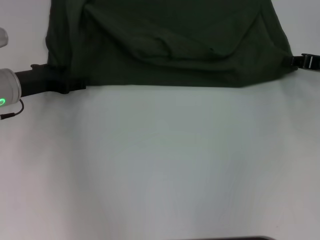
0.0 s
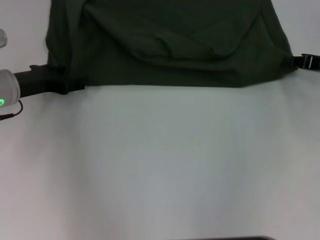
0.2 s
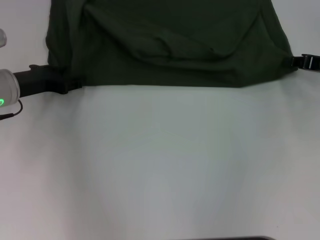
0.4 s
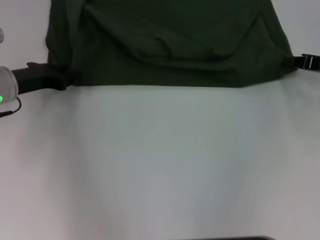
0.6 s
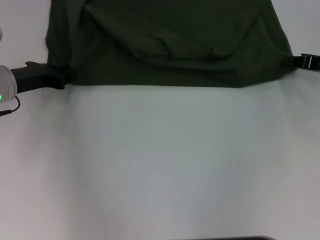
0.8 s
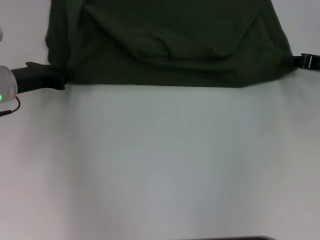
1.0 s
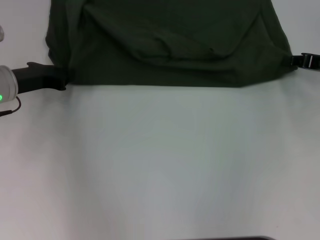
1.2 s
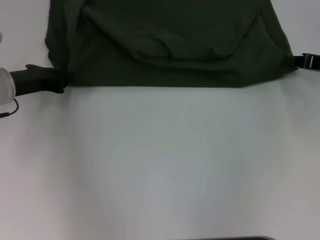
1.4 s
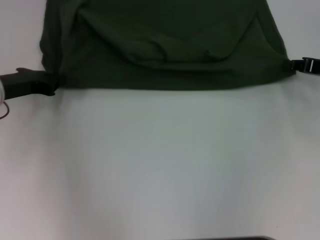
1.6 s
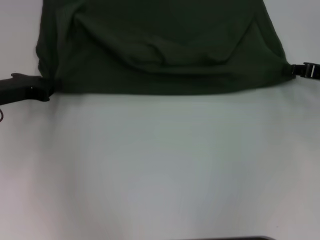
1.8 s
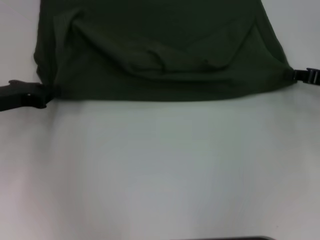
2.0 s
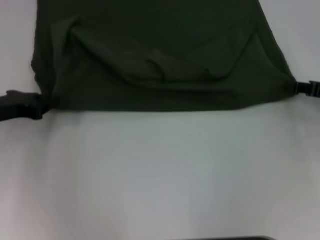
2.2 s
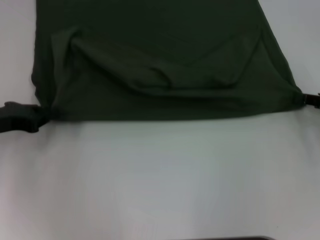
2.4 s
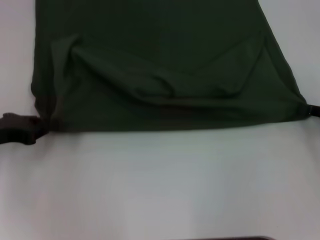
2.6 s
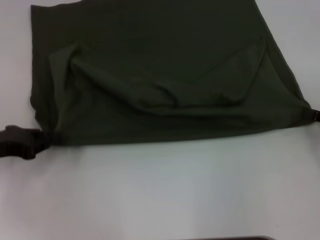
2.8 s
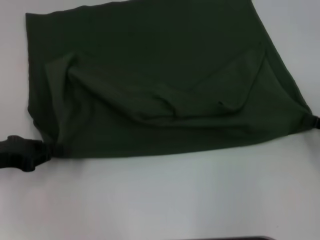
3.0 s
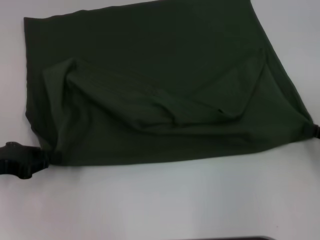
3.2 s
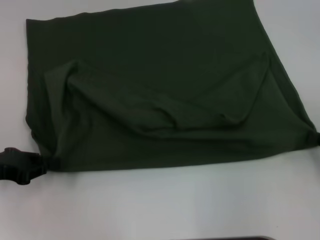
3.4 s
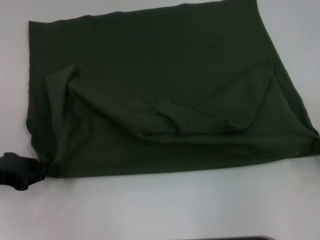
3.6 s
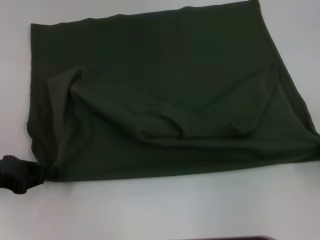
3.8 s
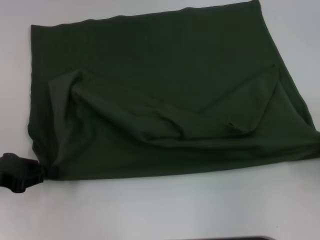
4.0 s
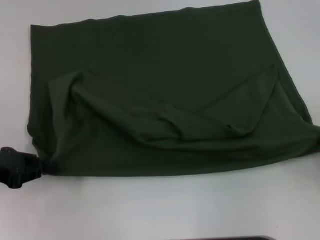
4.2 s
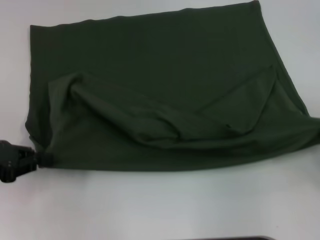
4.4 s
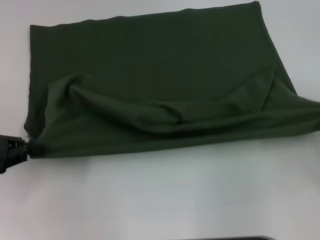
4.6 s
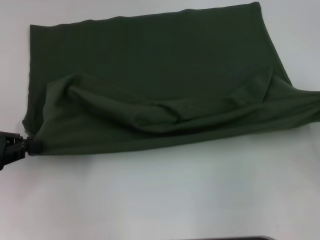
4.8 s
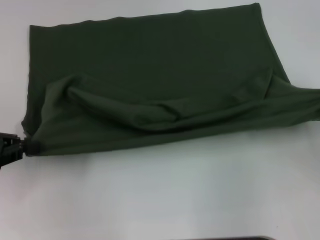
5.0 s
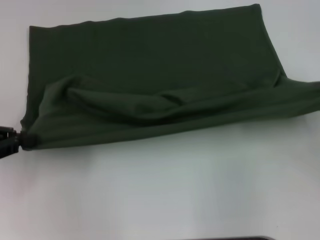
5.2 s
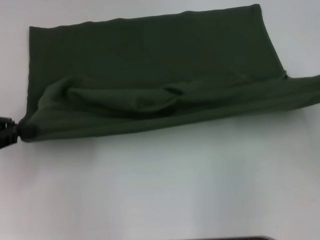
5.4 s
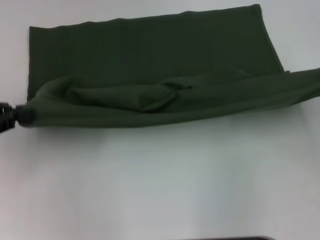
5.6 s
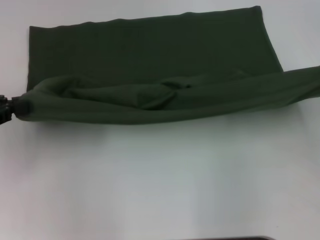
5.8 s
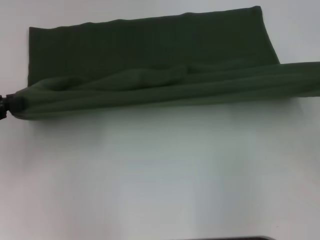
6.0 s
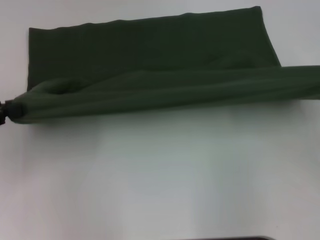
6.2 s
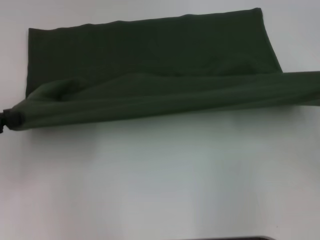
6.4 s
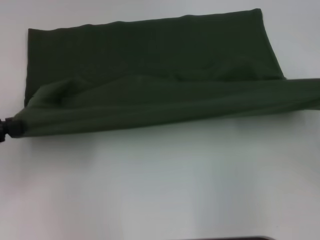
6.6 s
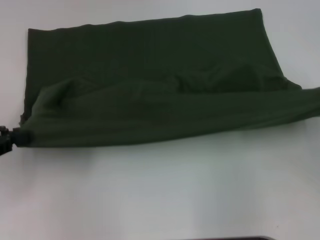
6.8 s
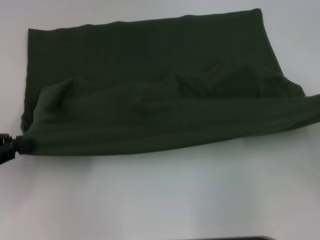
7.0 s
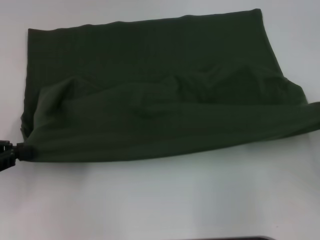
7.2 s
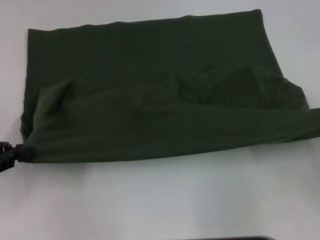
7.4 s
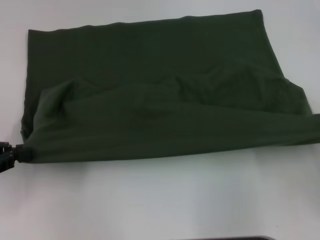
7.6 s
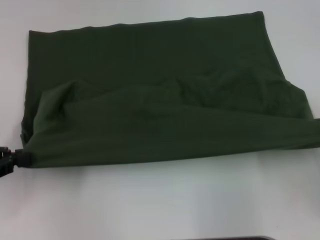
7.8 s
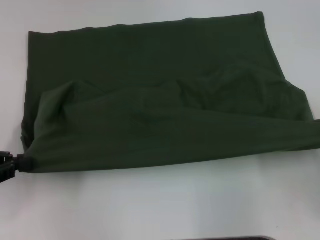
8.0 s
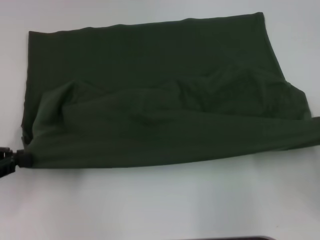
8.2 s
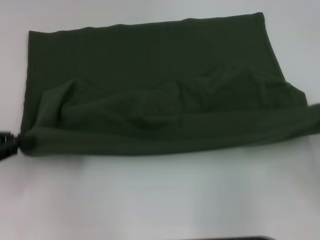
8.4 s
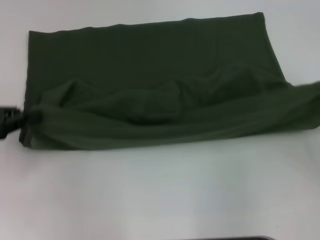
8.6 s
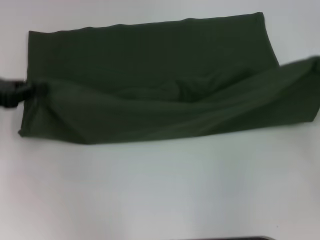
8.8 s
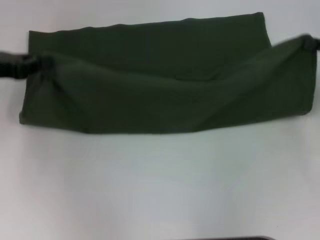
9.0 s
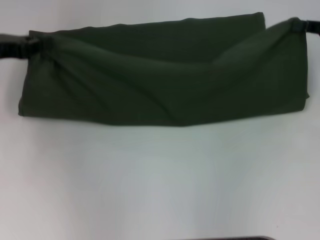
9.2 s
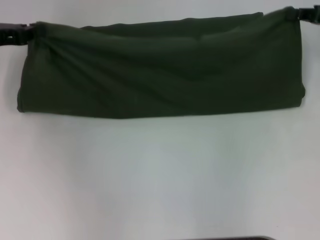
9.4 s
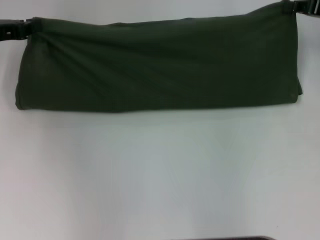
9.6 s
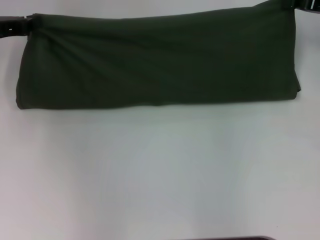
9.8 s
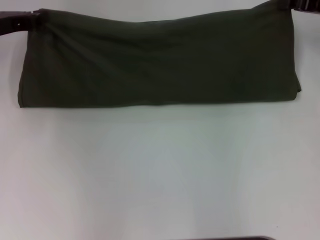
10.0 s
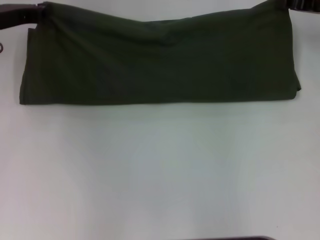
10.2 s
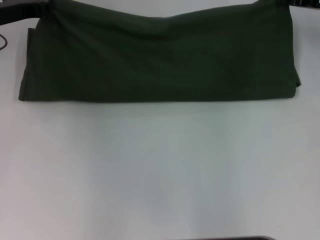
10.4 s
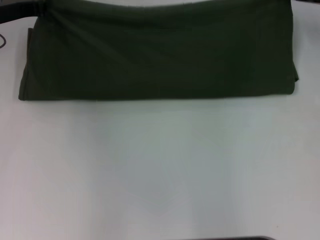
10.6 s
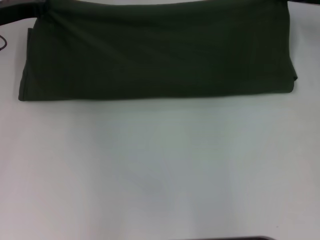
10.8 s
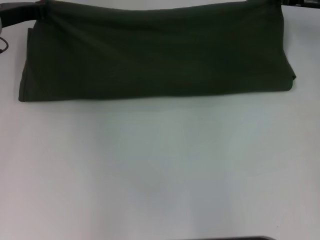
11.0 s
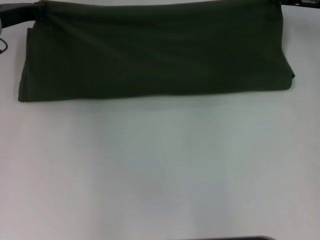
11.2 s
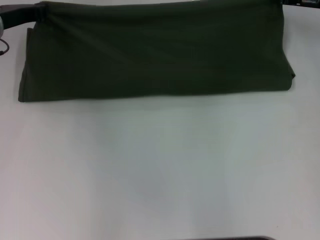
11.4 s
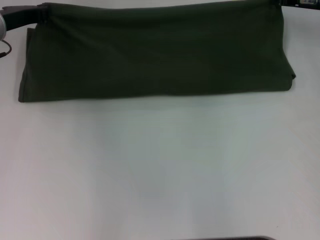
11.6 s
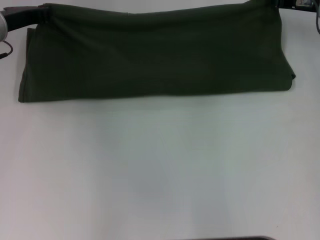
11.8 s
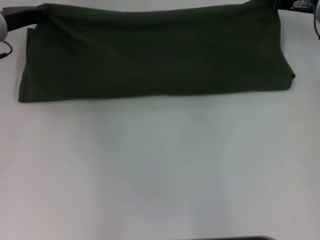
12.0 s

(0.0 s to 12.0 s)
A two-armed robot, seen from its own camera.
Step, 0.0 s - 7.2 s: Pull the clothes with your left hand.
Step, 0.0 s - 7.2 s: Pull the clothes with your right hand.
0.0 s - 1.6 s: The left gripper closes.
1.6 s - 3.0 s: Both grippers move backward, roughly 10 cm.
3.0 s - 4.4 s: There are only small adjustments of the grippers.
4.4 s - 6.0 s: The left gripper changes place by some 5 cm, while the right gripper is displaced upward by approximately 5 cm.
6.0 s - 7.6 s: The right gripper shifts approximately 5 cm backward.
7.6 s - 9.0 s: Both grippers move forward, approximately 15 cm.
9.0 s - 10.4 s: The left gripper goes approximately 10 cm forward. The right gripper heads forward and to the left, covering about 10 cm.
10.4 s - 12.0 s: There are only small adjustments of the grippers.

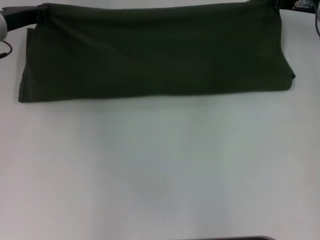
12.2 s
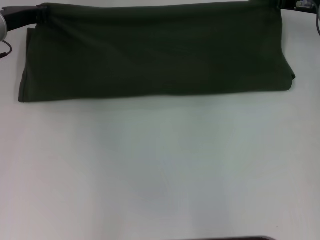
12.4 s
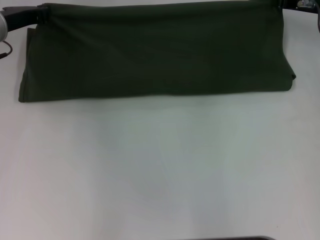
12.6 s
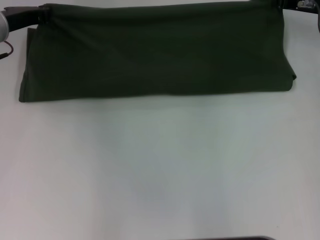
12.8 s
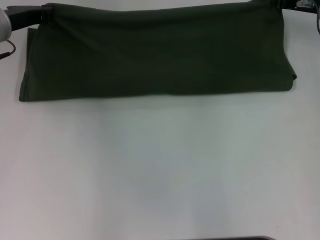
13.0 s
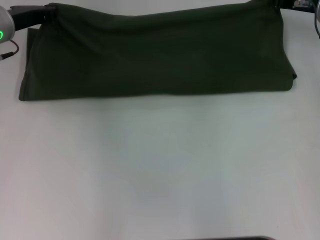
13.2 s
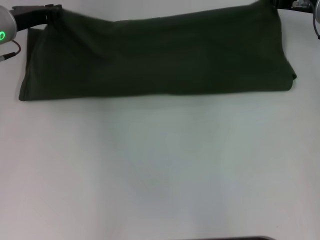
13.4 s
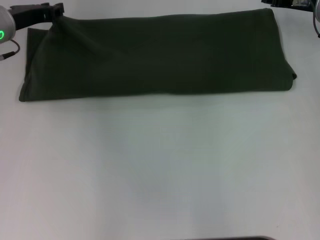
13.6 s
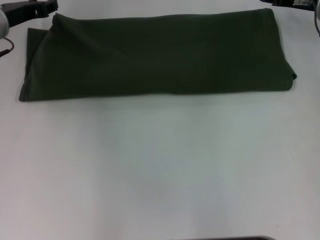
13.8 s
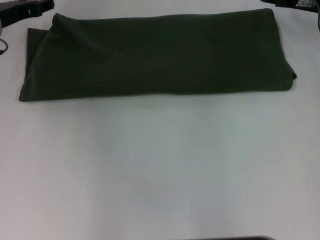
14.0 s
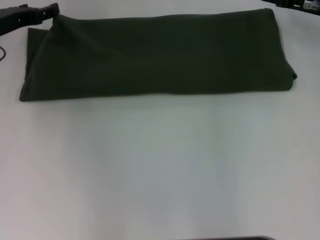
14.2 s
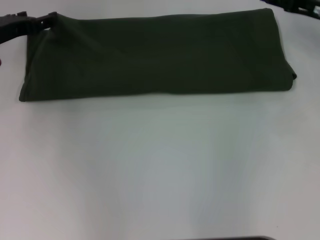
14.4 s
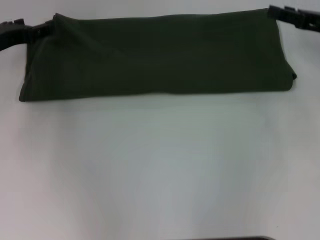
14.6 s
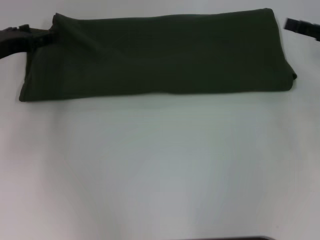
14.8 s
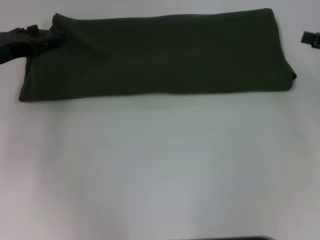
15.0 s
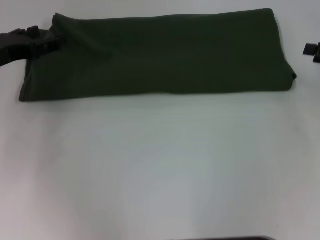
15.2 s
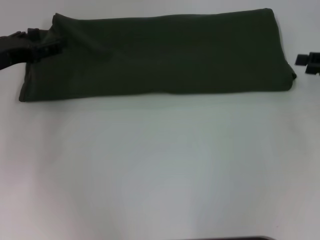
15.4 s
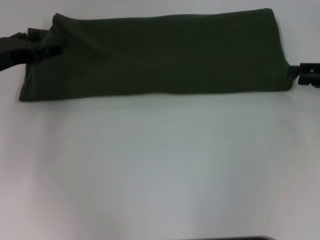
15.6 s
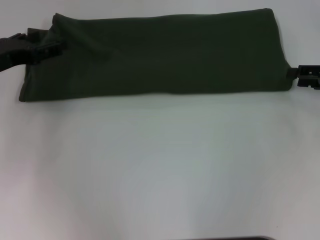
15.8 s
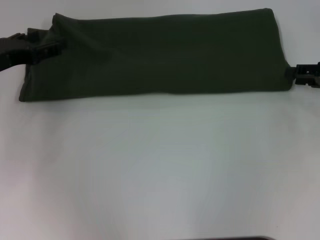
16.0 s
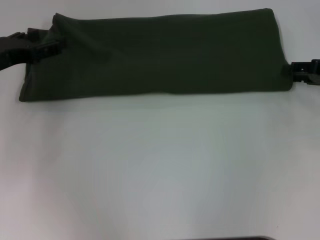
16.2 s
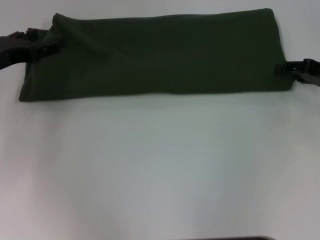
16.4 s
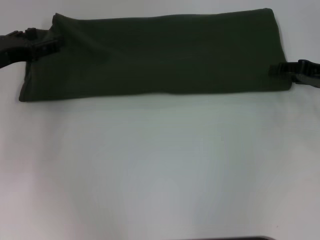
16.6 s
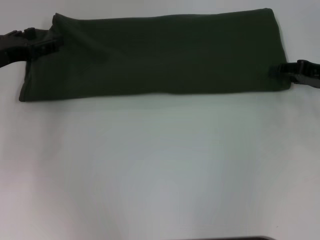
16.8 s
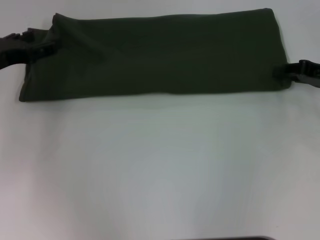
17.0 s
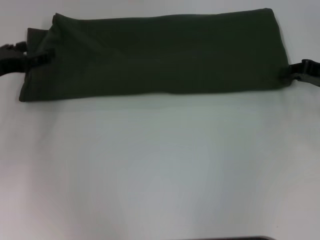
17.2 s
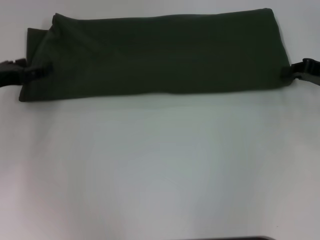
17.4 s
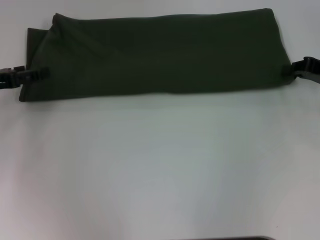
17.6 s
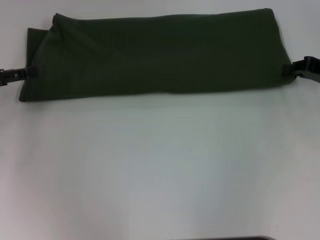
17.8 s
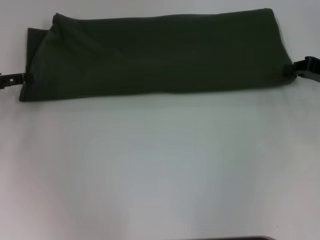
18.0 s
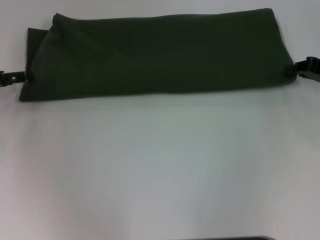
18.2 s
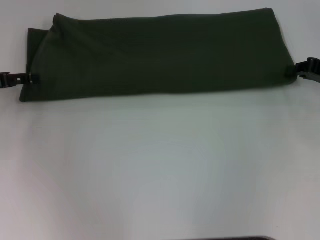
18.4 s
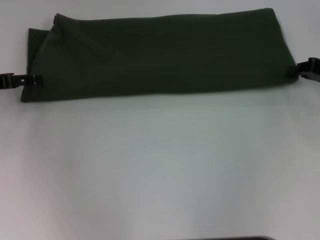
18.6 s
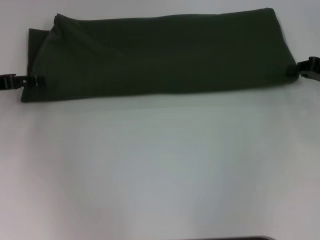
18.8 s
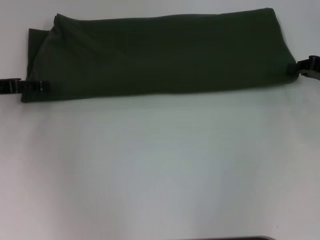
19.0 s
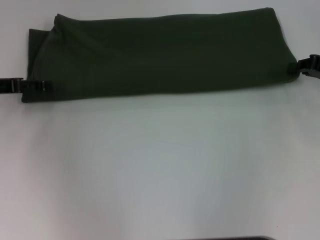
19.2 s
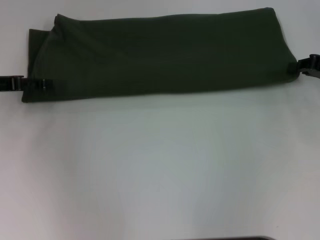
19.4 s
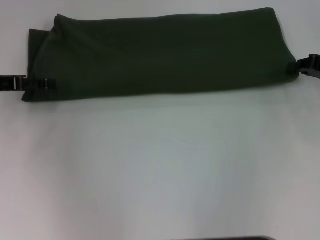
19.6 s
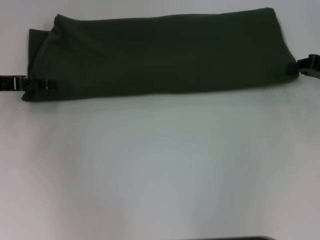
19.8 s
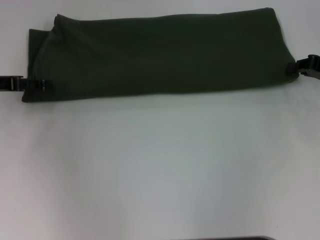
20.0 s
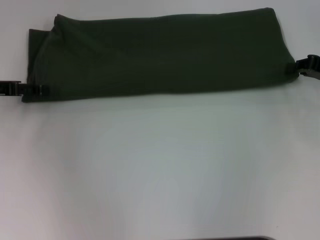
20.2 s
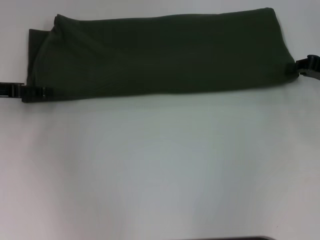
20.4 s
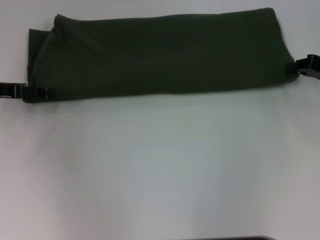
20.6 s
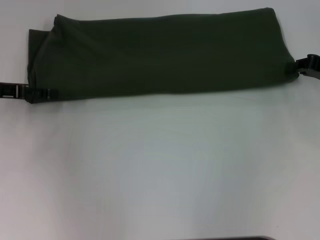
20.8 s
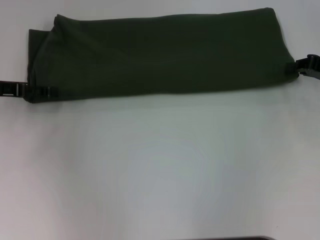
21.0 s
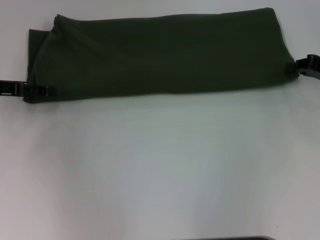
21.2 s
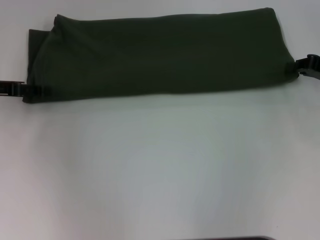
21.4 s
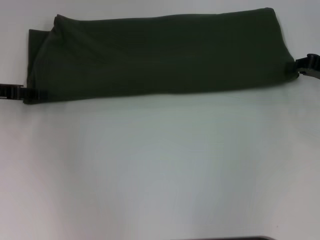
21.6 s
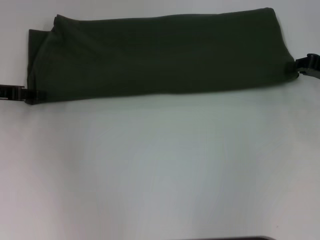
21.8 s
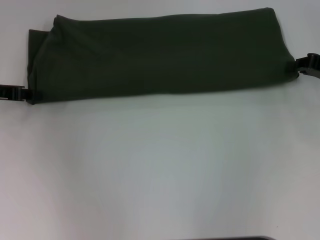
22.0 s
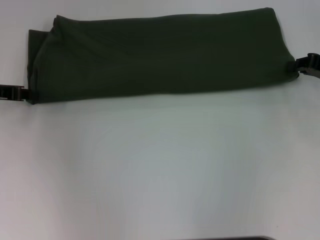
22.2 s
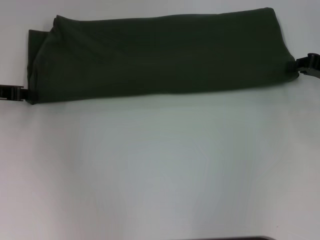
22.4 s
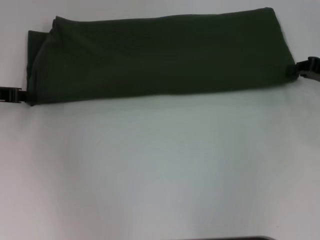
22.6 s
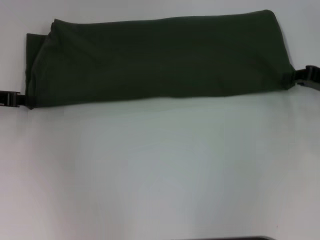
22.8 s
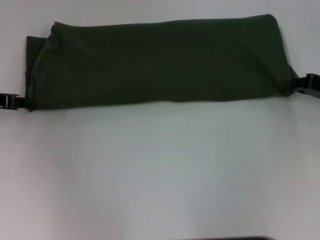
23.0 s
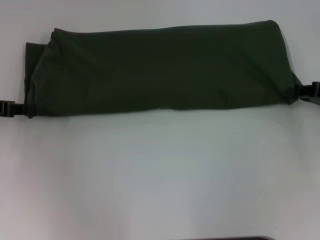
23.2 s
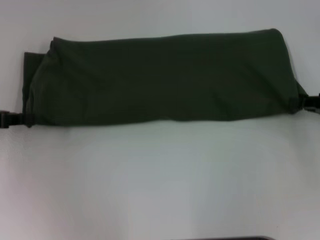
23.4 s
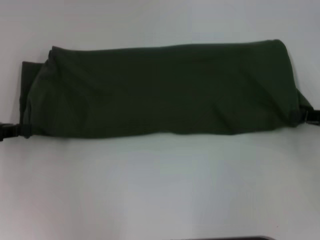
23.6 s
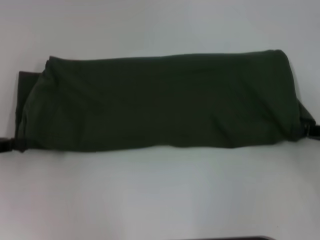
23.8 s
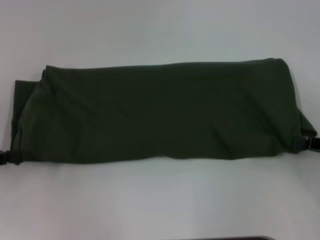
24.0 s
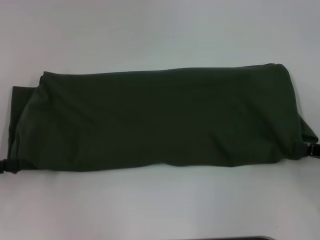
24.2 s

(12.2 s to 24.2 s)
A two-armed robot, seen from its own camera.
12.2 s - 13.8 s: The left gripper opens.
13.8 s - 15.2 s: The right gripper shifts approximately 15 cm backward and to the right; the left gripper travels backward by some 10 cm, and opens up.
15.2 s - 16.6 s: The right gripper moves about 5 cm.
16.6 s - 18.2 s: The right gripper closes its fingers. The left gripper is displaced to the left by some 5 cm.
18.2 s - 19.8 s: There are only small adjustments of the grippers.
19.8 s - 21.2 s: Both grippers stay about where they are.
21.2 s - 22.6 s: The left gripper closes up.
22.6 s - 24.2 s: The two grippers go roughly 15 cm backward.
